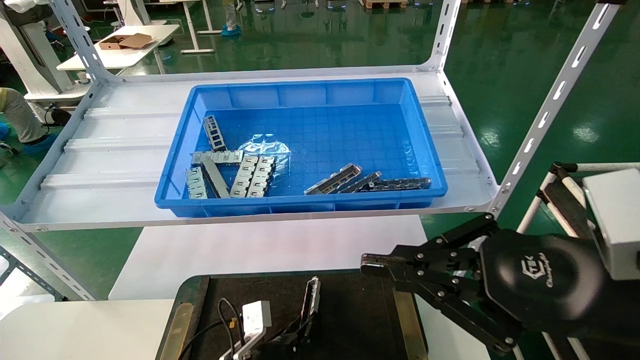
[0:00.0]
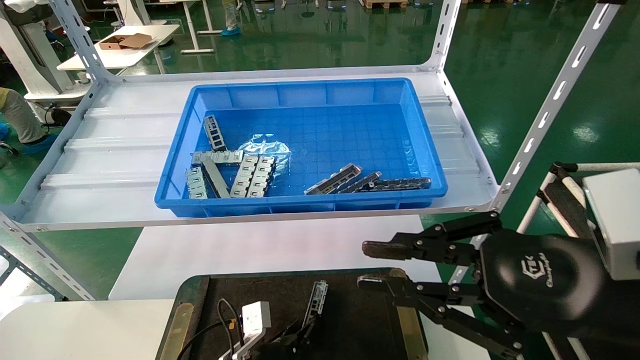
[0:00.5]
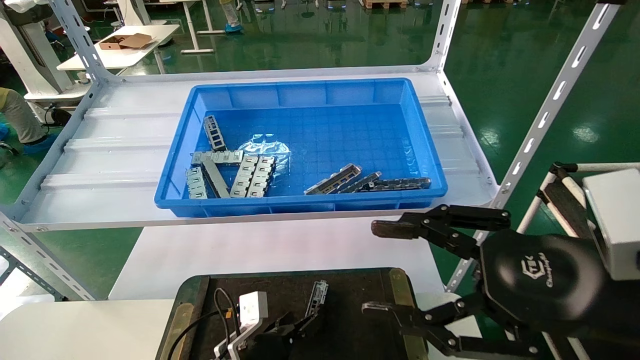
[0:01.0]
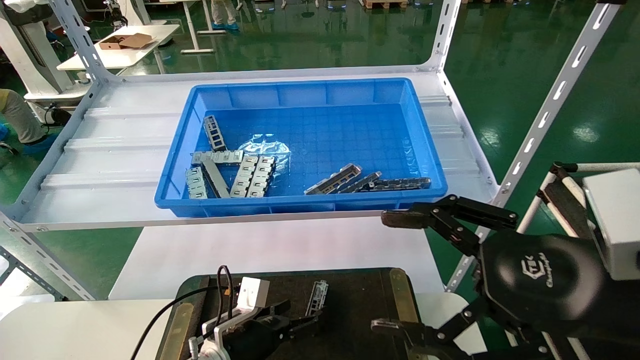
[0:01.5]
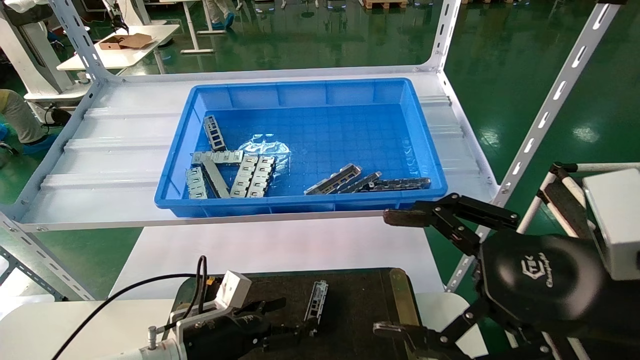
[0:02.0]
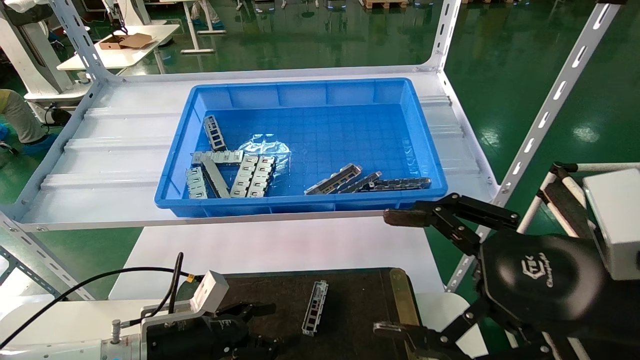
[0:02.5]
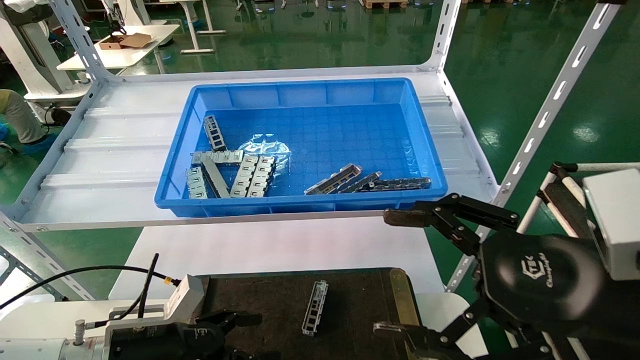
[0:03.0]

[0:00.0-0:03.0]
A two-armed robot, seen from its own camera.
Task of the whole recording: Grasp the part with one hand and place it on the black container.
0:00.0 to 0:01.5: The left gripper is displaced upward by about 5 cm, and opens its fingers, while the right gripper opens up.
0:01.5 to 0:03.0: The left gripper is displaced to the left and upward by some 15 cm.
